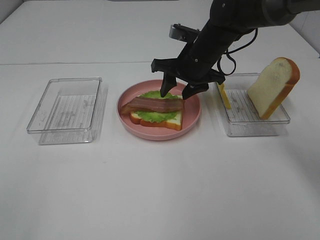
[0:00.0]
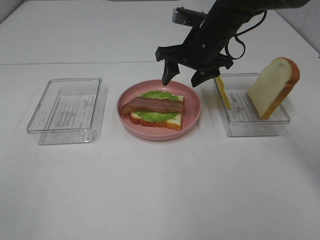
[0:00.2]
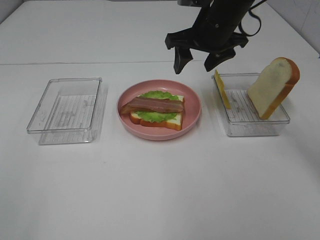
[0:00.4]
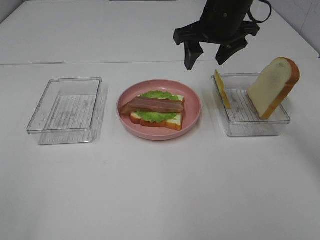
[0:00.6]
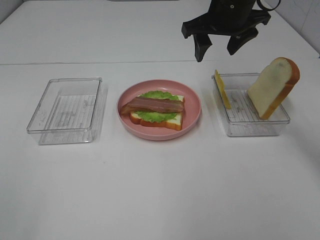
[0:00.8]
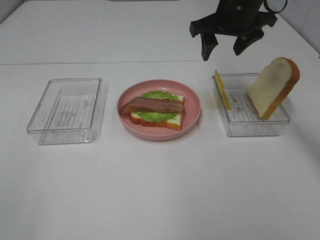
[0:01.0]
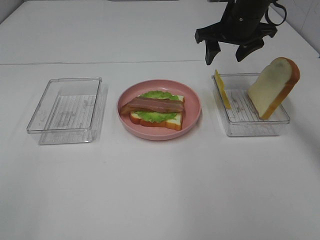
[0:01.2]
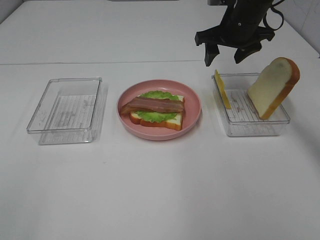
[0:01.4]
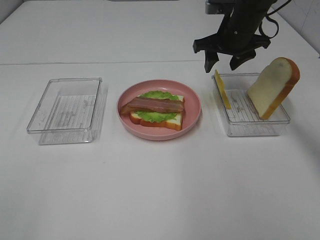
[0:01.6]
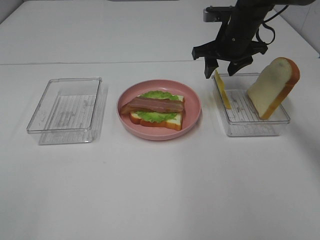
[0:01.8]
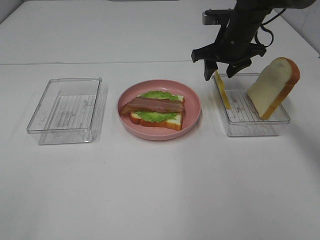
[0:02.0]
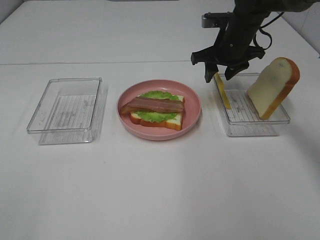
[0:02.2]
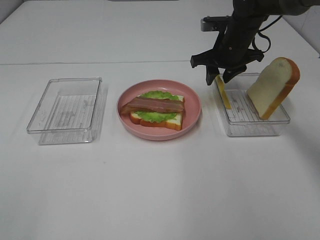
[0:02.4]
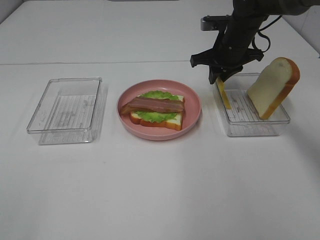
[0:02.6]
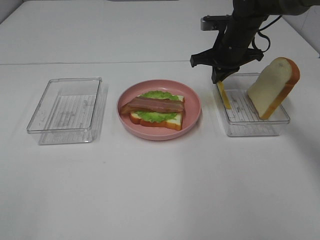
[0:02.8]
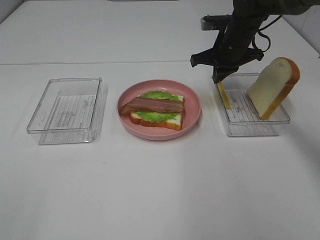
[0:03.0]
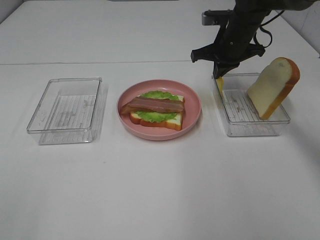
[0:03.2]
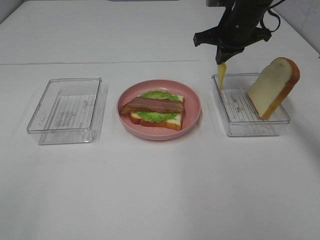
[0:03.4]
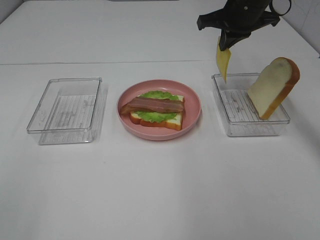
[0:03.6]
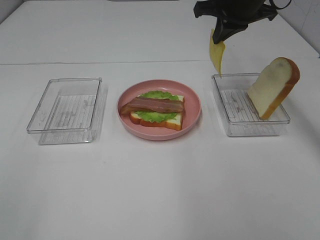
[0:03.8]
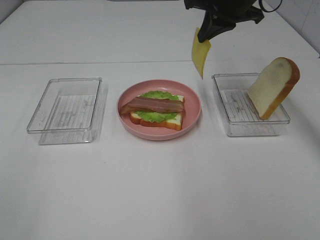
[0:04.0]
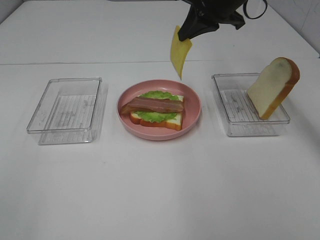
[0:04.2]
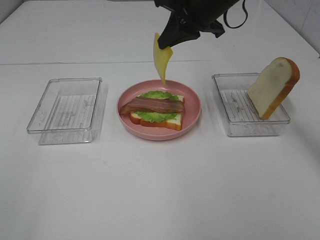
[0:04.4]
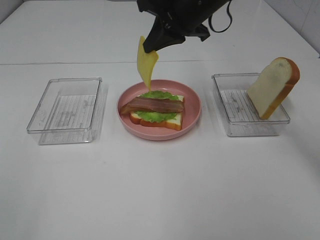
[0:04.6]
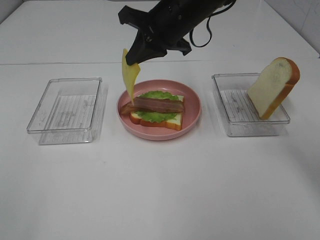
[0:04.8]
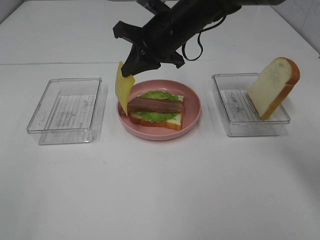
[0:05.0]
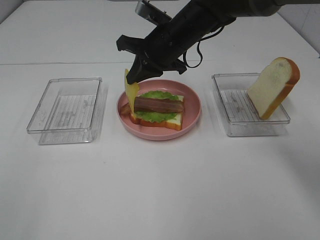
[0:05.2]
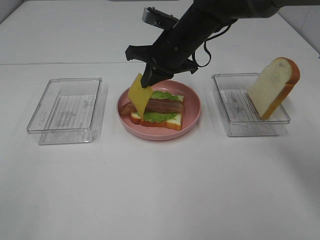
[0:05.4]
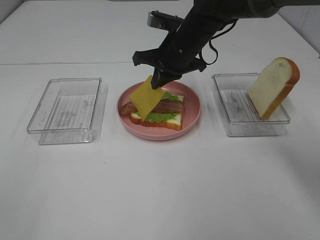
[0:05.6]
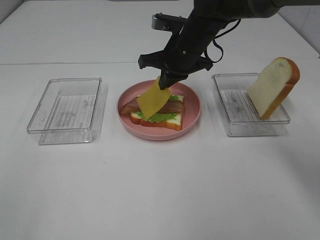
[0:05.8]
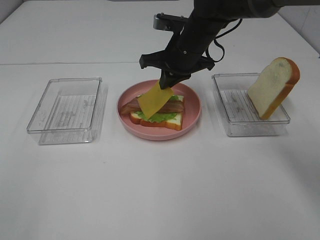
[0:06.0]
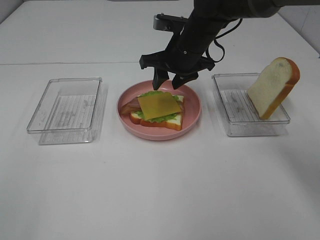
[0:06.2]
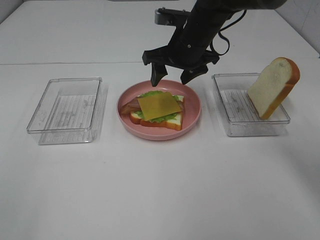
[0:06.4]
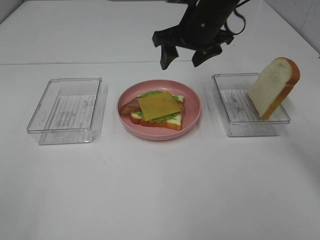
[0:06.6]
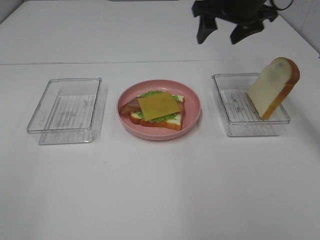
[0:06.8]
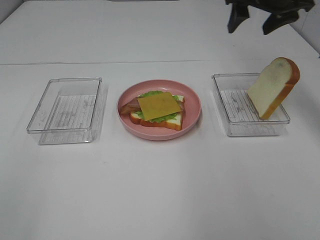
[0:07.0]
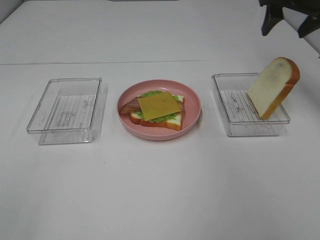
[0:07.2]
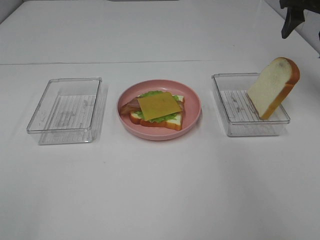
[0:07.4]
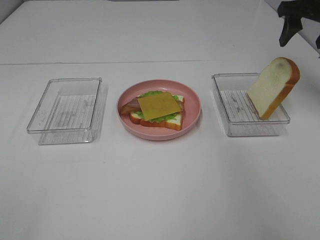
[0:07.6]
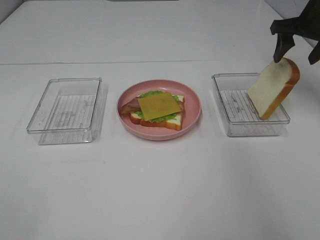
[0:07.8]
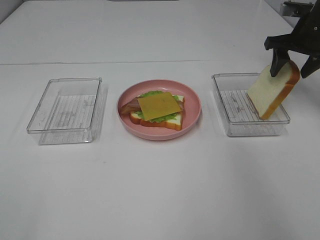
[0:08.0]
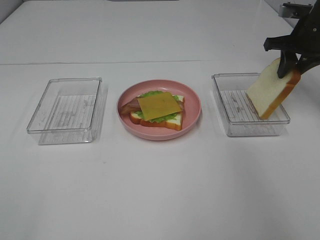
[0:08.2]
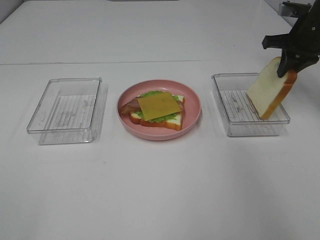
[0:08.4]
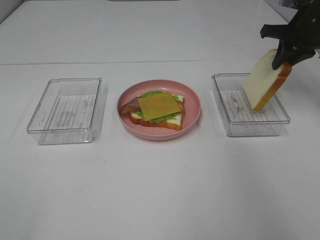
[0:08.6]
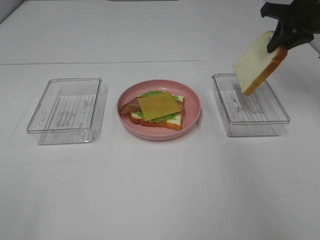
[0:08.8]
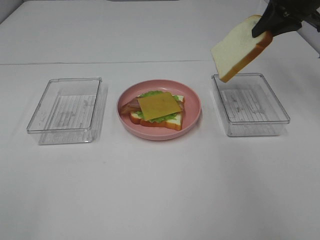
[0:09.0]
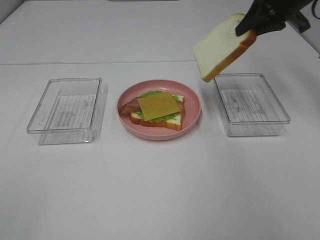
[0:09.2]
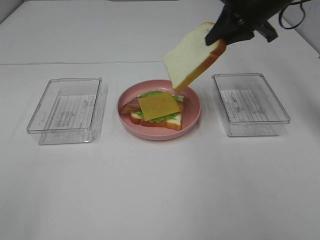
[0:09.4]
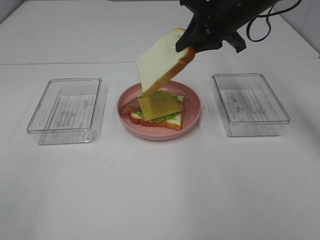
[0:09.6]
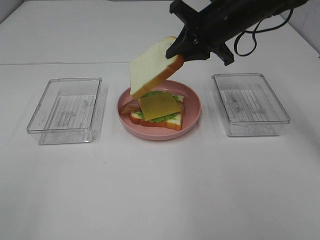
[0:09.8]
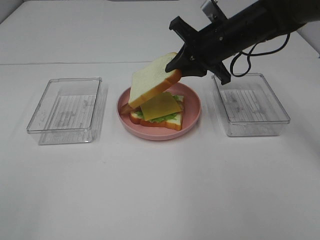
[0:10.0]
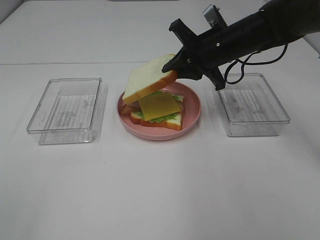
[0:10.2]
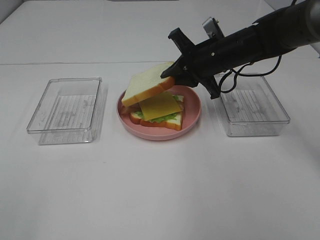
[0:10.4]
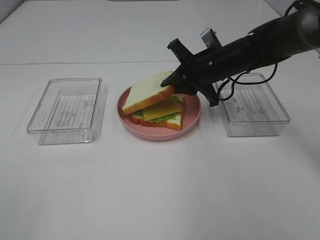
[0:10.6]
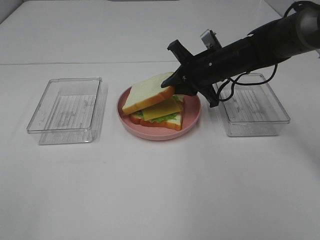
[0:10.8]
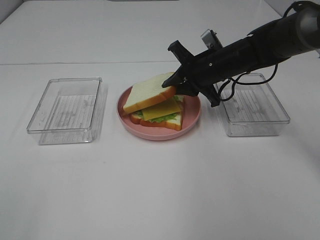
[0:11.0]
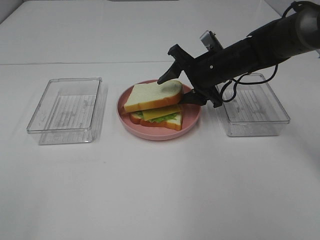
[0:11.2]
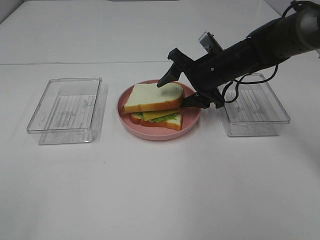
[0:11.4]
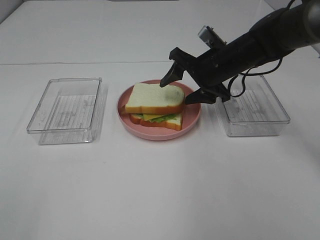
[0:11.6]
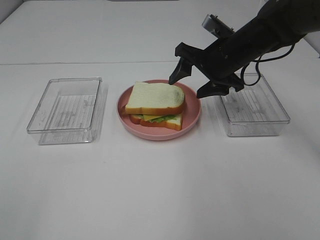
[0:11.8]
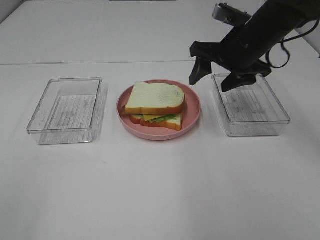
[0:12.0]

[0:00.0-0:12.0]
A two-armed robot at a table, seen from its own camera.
Task of the whole recording: Make sandwiches.
Step, 0:00.6 to 0:03.0: Right hand:grab the cheese slice.
Step, 0:03.2 to 0:06.2: Right hand:place the cheese slice on top of the bacon.
Step, 0:06.4 to 0:08.2: Right hand:grab the bread slice.
Step, 0:08.4 to 0:11.8: Right hand:place the bread slice on the cheese slice.
0:00.0 to 0:01.6: The right gripper goes roughly 5 cm to the right, and goes upward and returns, approximately 10 cm each way.
0:01.6 to 0:03.0: The right gripper closes its fingers.
0:03.0 to 0:04.4: The right gripper is displaced upward, to the left and backward by approximately 15 cm.
0:04.4 to 0:06.0: The right gripper goes some 10 cm downward.
0:06.0 to 0:07.6: The right gripper is displaced to the right by about 25 cm, and opens up.
0:07.6 to 0:09.0: The right gripper goes downward and returns, roughly 5 cm each way, and closes its fingers.
0:09.0 to 0:10.4: The right gripper moves to the left and downward, some 20 cm.
0:10.4 to 0:12.0: The right gripper travels upward by about 5 cm, and opens its fingers.

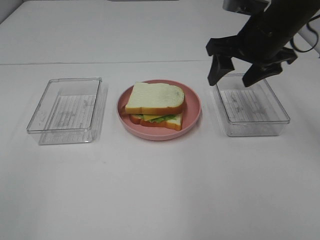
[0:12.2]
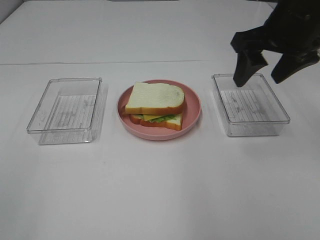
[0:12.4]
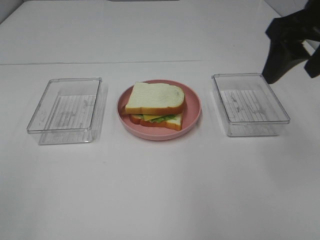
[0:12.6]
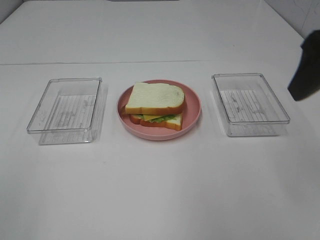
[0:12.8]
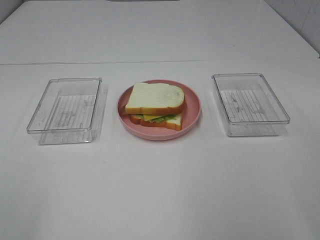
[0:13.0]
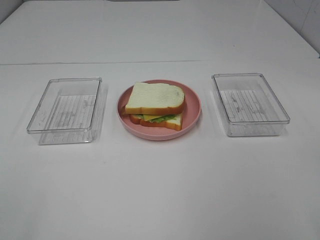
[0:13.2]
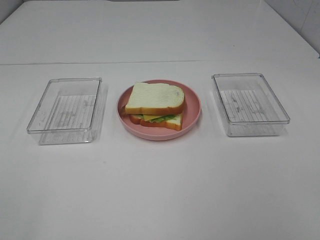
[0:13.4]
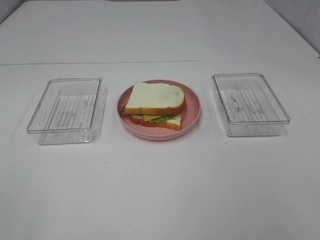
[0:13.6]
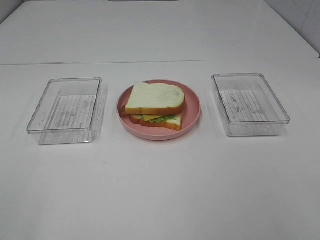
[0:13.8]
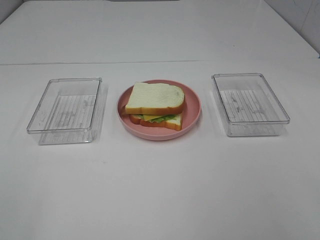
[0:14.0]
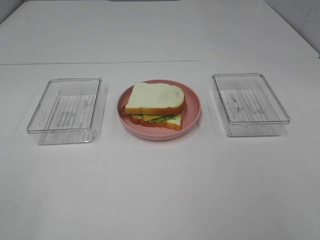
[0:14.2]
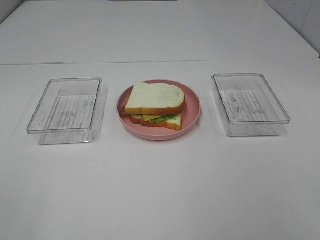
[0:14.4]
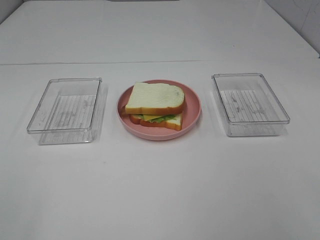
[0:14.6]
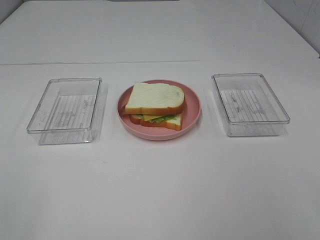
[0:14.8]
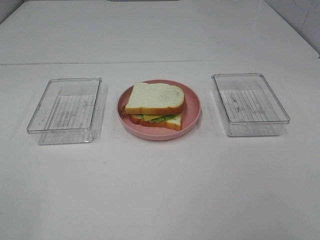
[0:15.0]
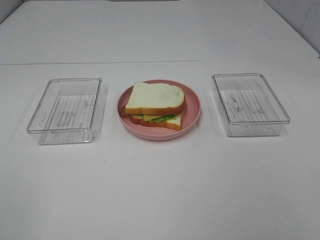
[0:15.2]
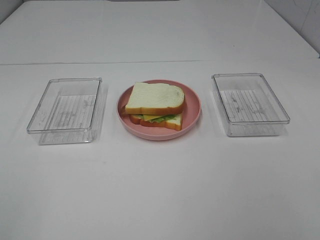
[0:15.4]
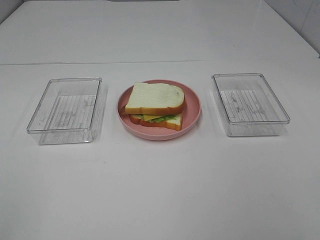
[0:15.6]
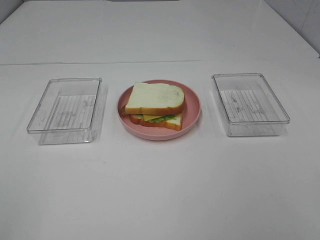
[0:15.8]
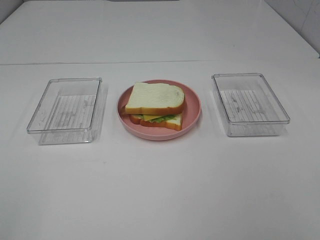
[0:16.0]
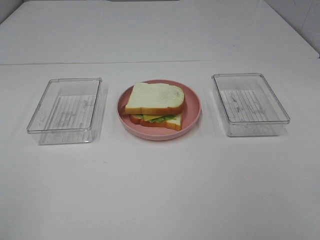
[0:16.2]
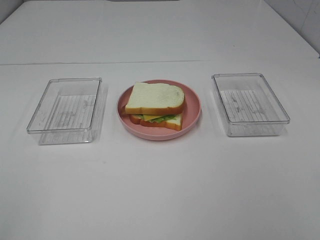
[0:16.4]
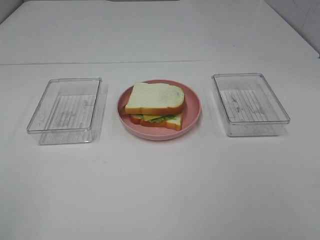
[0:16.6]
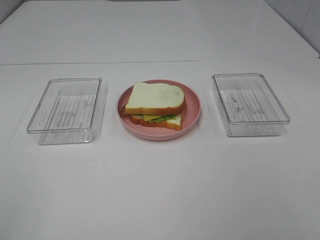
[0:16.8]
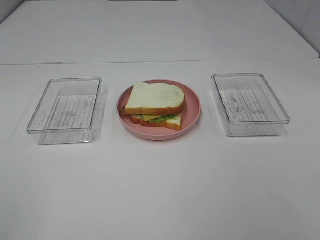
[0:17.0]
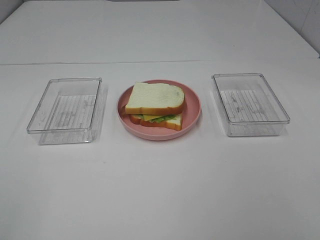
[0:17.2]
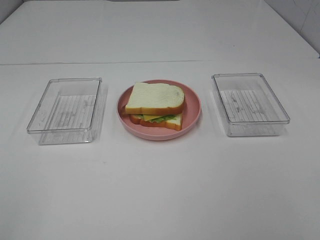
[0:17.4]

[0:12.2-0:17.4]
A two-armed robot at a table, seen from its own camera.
Task of the whole recording: Make sandwiches.
0:12.2 to 0:14.0: The right gripper goes approximately 35 cm backward.
0:15.6 to 0:17.4: The two grippers keep their place.

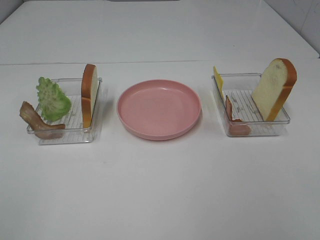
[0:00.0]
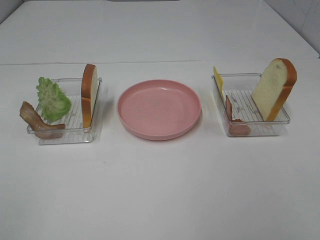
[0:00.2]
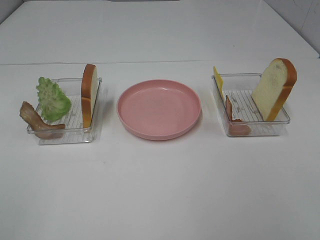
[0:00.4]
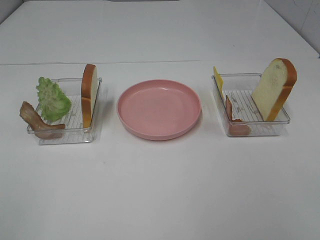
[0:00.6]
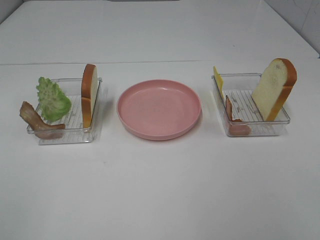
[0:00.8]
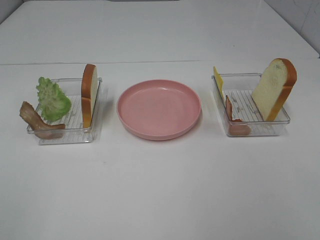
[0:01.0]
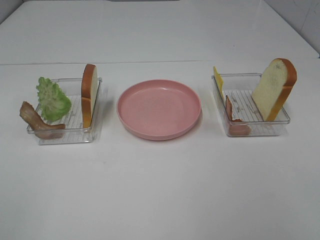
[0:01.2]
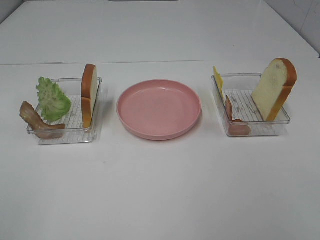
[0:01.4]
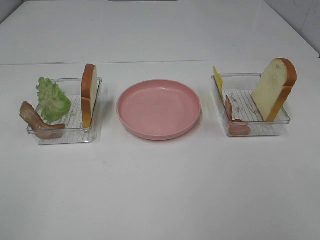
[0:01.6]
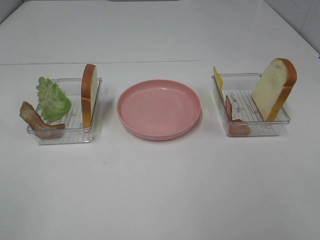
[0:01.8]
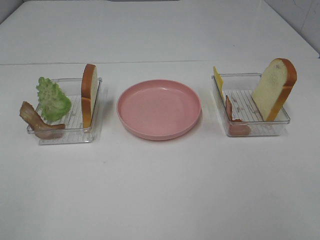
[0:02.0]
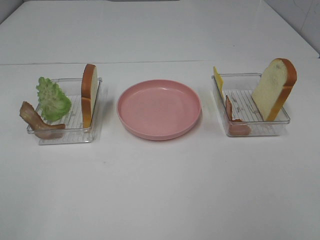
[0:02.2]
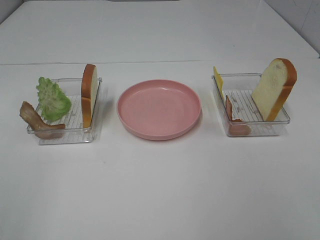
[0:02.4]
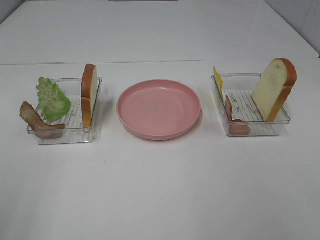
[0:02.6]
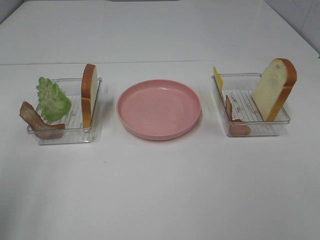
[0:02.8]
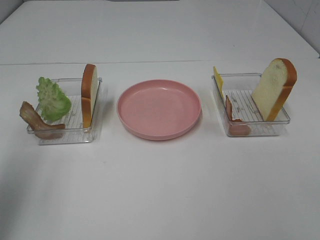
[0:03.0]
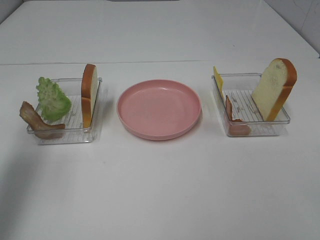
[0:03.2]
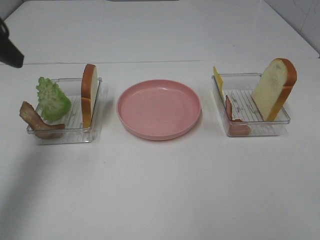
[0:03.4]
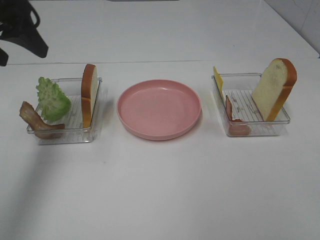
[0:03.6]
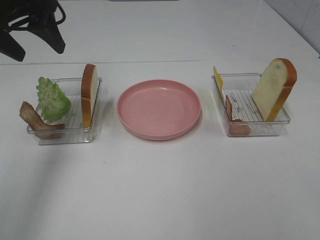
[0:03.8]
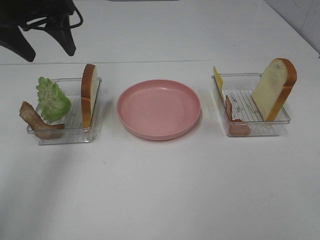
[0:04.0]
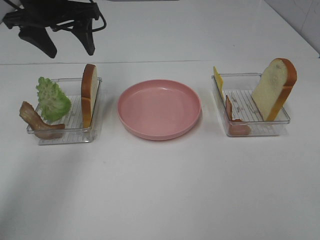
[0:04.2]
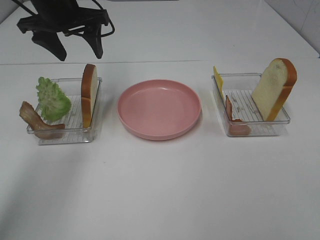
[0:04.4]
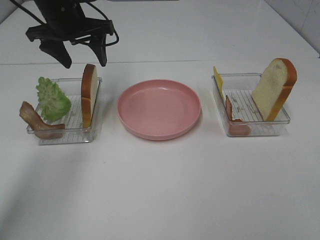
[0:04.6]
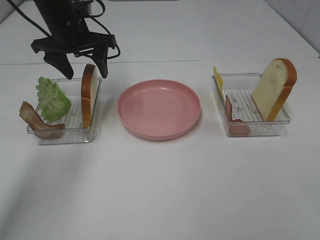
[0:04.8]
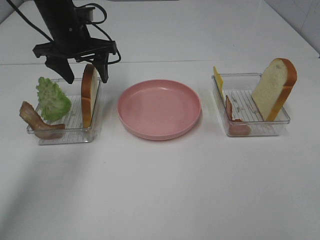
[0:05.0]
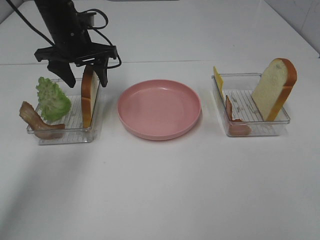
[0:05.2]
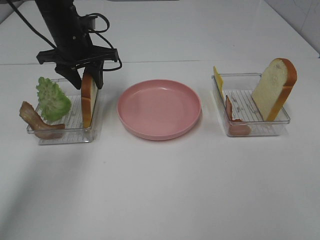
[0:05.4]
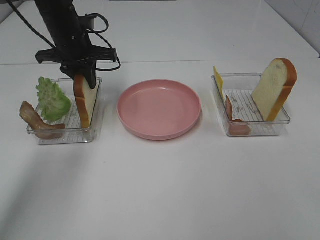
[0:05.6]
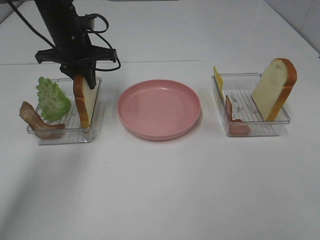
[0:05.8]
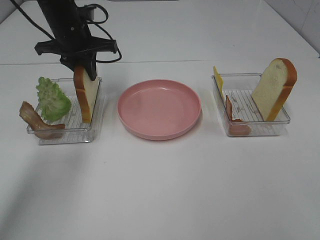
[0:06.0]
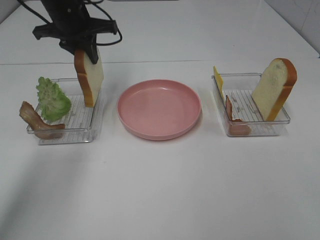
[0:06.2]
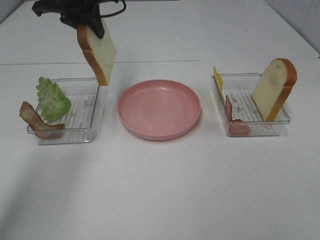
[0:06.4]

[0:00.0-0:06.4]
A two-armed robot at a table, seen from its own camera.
Task of the whole recording: Make sandwiches.
Step, 0:00.0 to 0:05.6: Left hand:grab the bread slice.
0:00.0 to 0:01.6: Both grippers stay about where they are.
0:01.6 to 0:03.2: The left gripper heads forward, covering approximately 20 cm.
0:03.2 to 0:04.8: The left gripper heads forward and to the right, covering approximately 25 cm.
0:04.8 to 0:06.4: The left gripper travels upward by some 10 cm, and closes its fingers.
